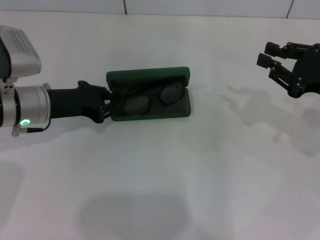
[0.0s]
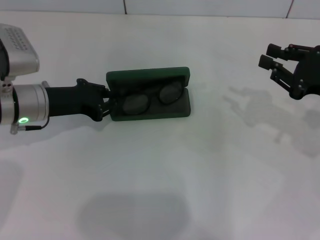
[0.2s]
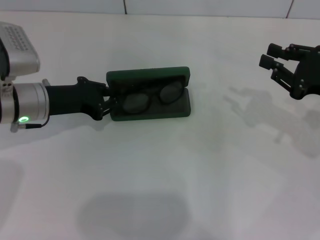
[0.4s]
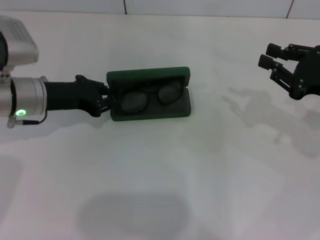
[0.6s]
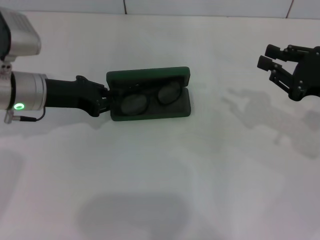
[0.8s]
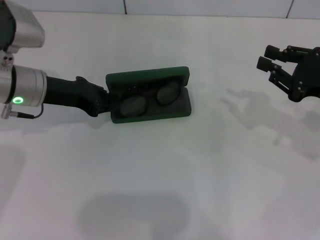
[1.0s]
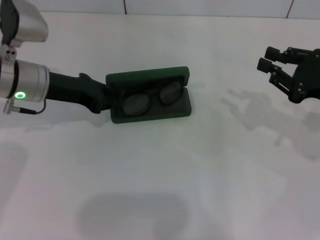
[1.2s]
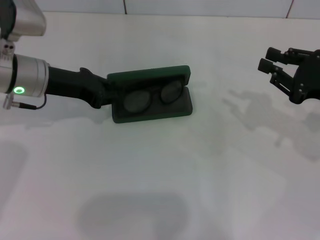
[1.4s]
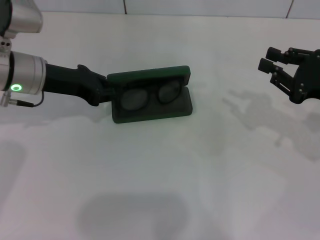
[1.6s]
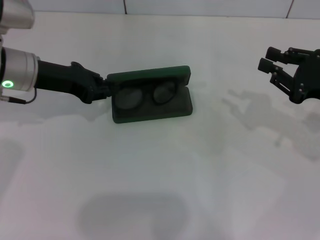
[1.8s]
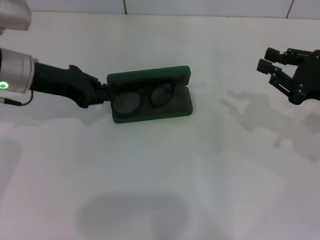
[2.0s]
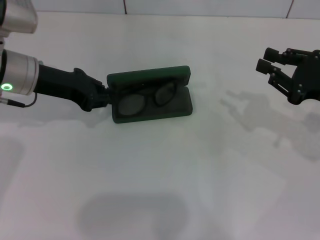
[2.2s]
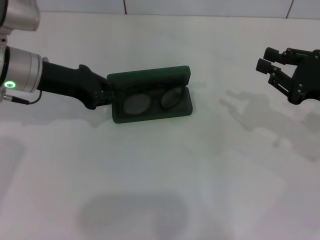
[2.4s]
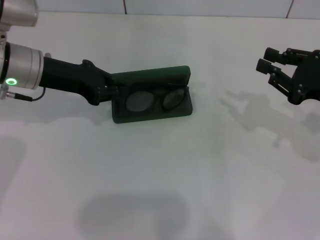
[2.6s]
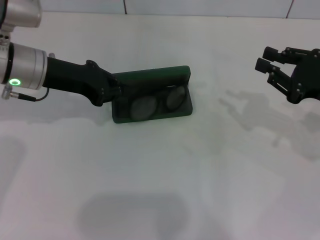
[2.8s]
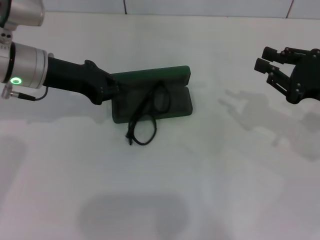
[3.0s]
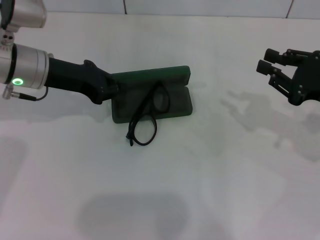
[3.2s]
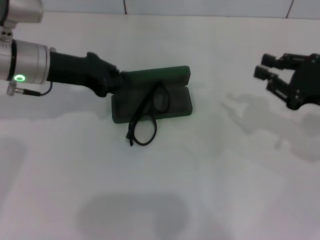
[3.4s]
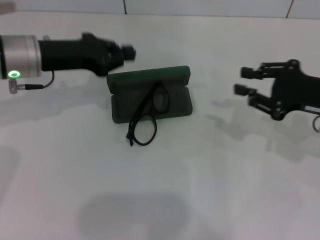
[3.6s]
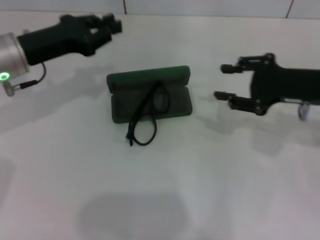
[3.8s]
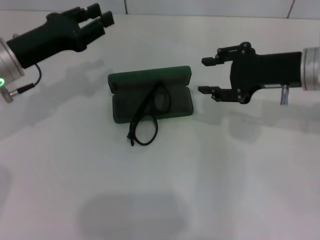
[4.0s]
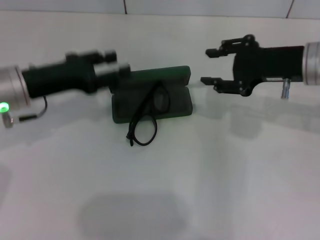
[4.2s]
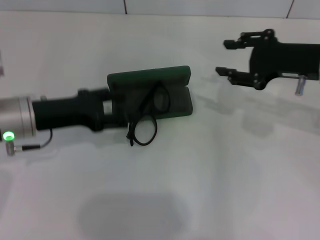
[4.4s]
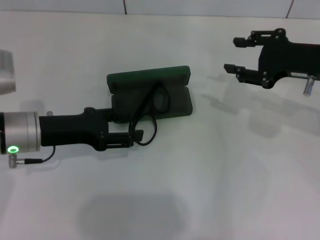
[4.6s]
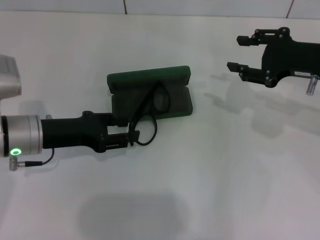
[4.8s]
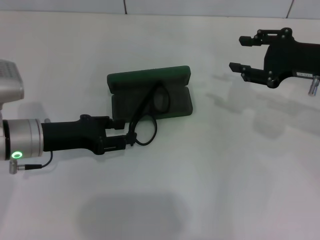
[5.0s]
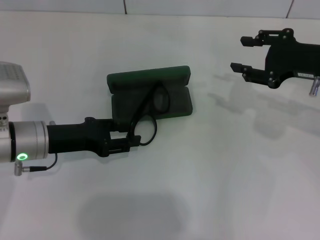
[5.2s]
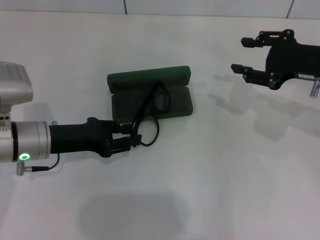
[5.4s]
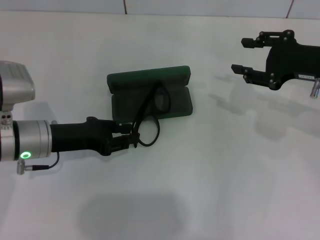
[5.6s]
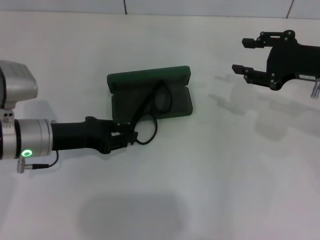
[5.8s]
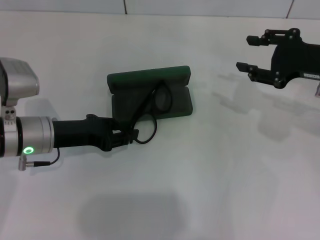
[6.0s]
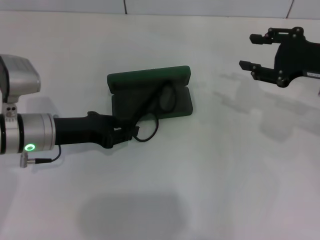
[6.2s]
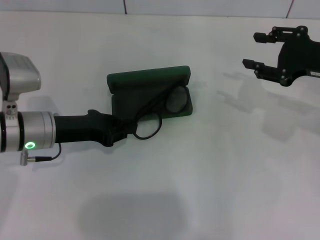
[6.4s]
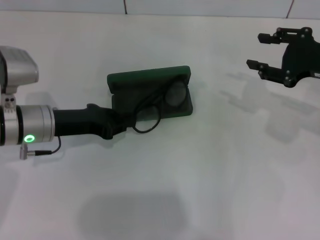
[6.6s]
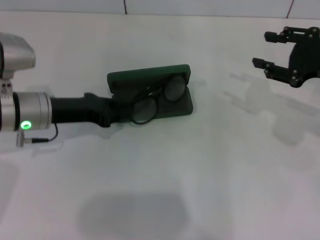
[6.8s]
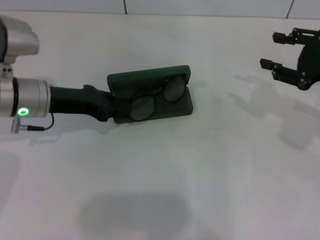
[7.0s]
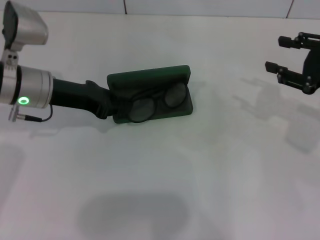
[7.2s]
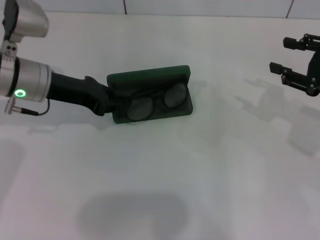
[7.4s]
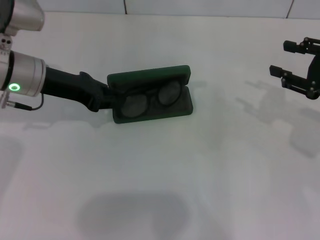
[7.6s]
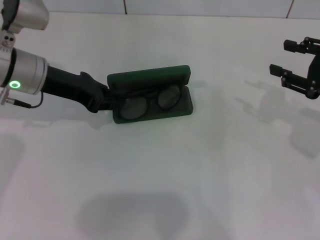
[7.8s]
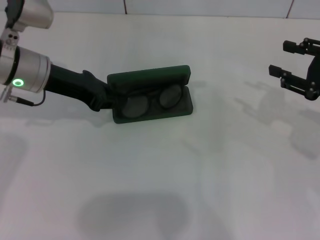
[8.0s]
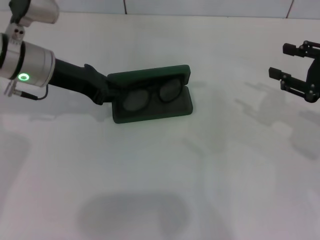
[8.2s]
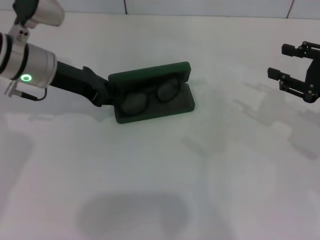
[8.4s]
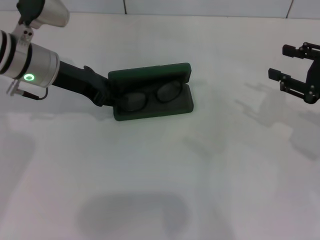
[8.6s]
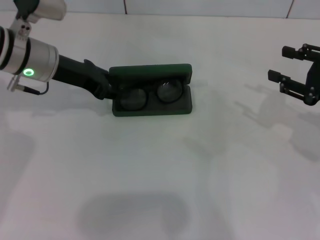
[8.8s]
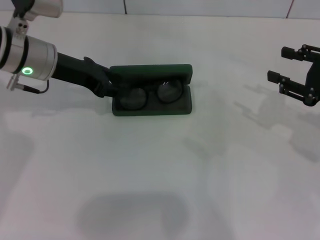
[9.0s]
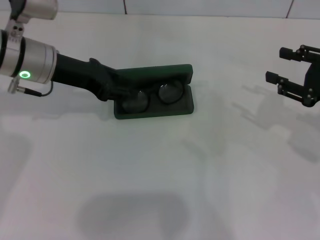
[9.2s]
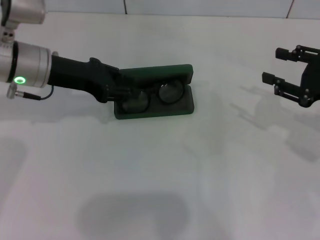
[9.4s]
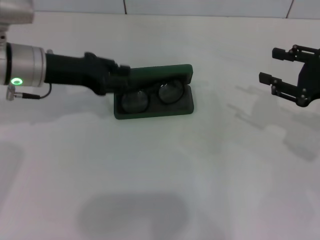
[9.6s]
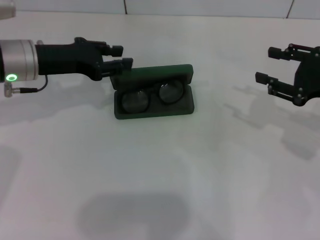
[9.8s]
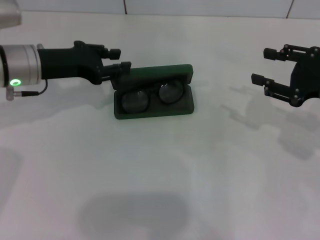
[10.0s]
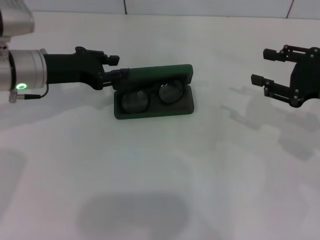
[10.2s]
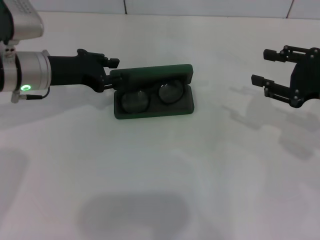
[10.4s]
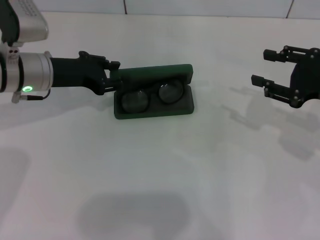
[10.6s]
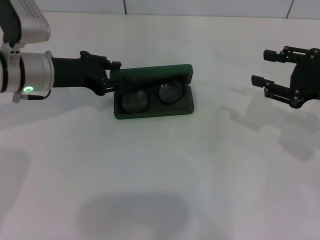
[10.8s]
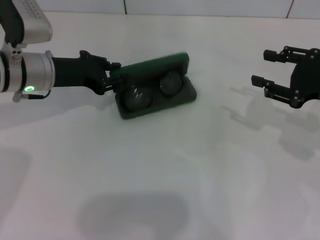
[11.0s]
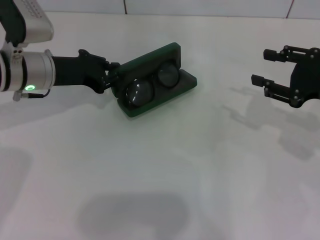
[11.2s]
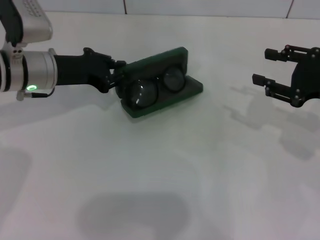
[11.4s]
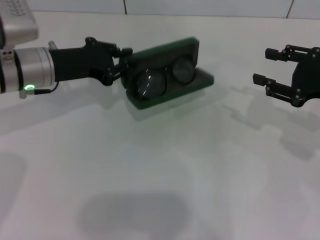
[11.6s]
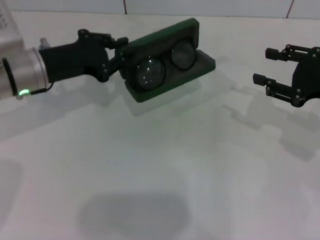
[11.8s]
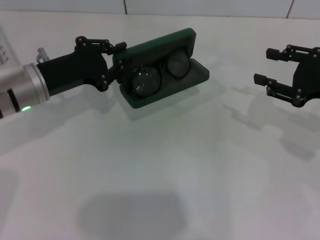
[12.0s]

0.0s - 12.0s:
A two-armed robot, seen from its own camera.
Step, 0.0s - 9.2s: Put the glasses into the case with your left hand.
0.0s - 1.6s: The left gripper moves approximately 5 cm.
1.6s - 3.0s: The grippers make only small movements.
3.0s - 4.4s: The right gripper moves forward and to the left, about 10 cm. The left gripper is displaced backward by roughly 5 cm, and opens.
4.4s - 6.0s: The grippers make only small movements.
6.0s - 7.6s: The left gripper travels upward and forward by approximately 10 cm; the right gripper ends up roughly 5 cm from where it was.
7.6s - 9.0s: The left gripper opens its fingers.

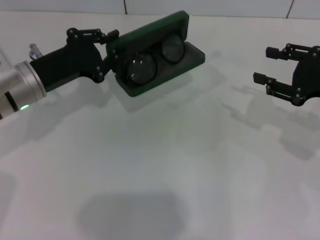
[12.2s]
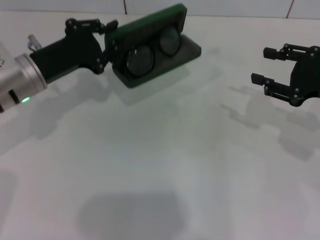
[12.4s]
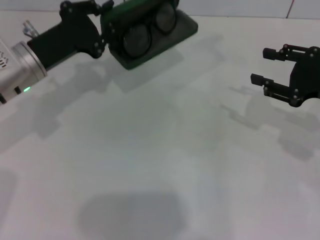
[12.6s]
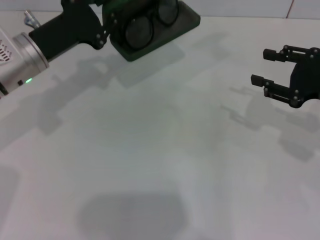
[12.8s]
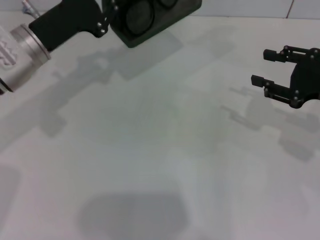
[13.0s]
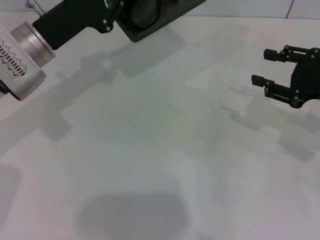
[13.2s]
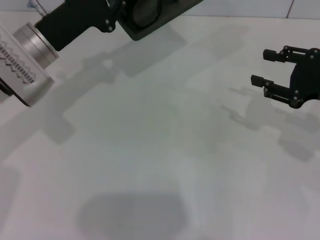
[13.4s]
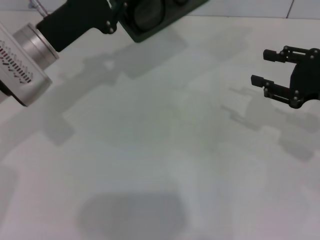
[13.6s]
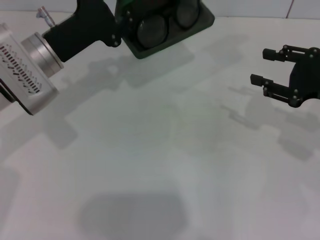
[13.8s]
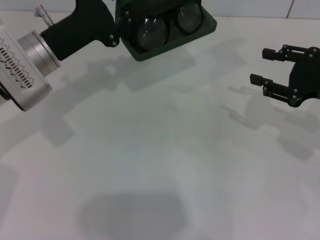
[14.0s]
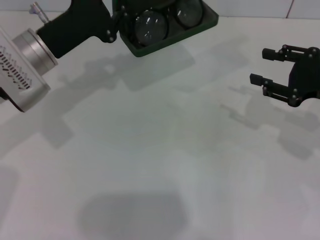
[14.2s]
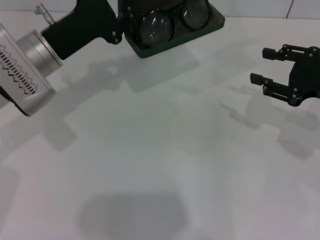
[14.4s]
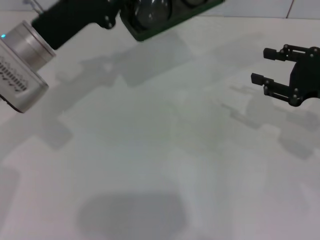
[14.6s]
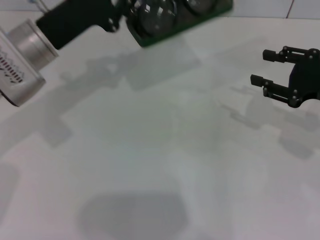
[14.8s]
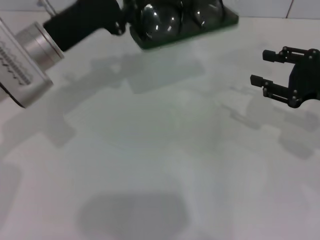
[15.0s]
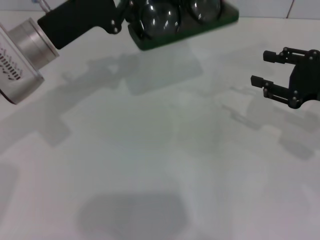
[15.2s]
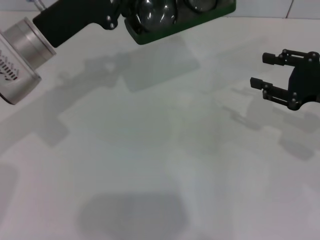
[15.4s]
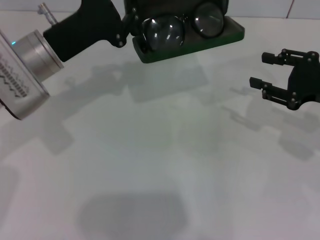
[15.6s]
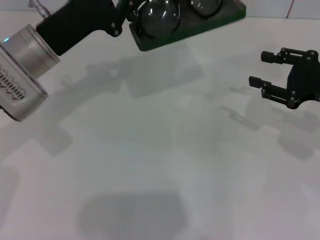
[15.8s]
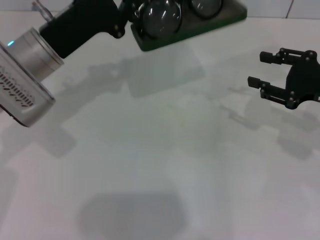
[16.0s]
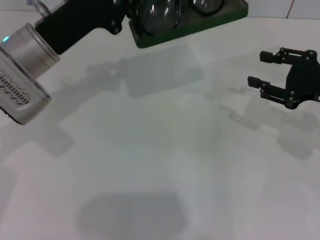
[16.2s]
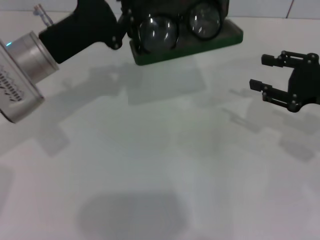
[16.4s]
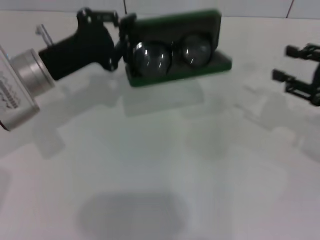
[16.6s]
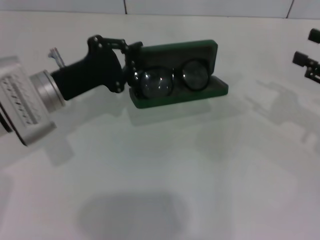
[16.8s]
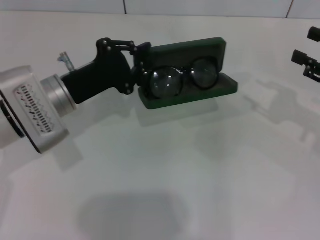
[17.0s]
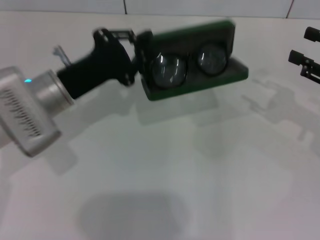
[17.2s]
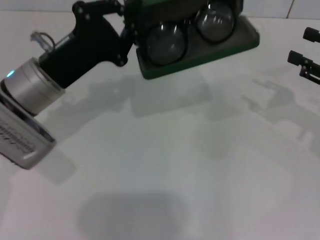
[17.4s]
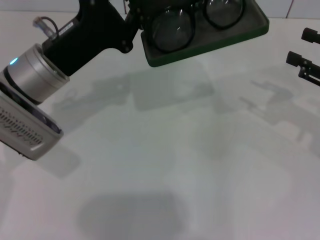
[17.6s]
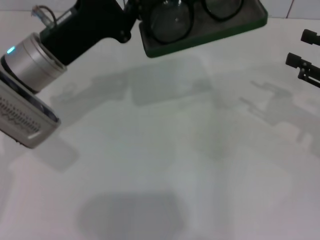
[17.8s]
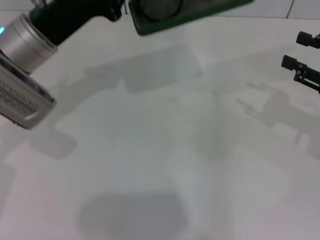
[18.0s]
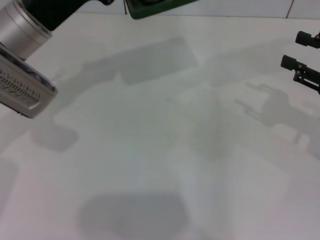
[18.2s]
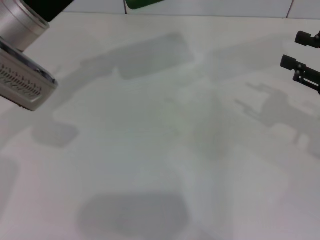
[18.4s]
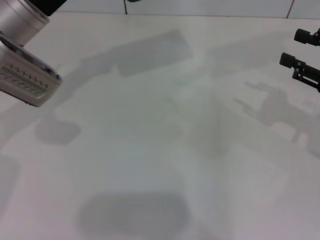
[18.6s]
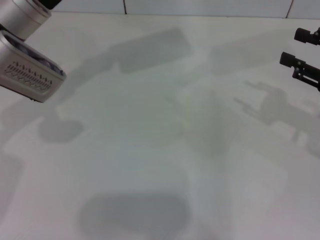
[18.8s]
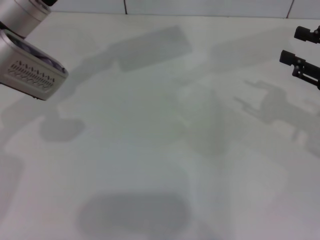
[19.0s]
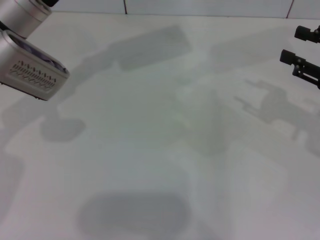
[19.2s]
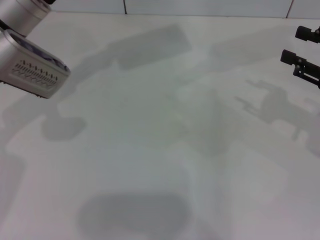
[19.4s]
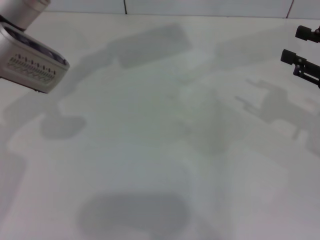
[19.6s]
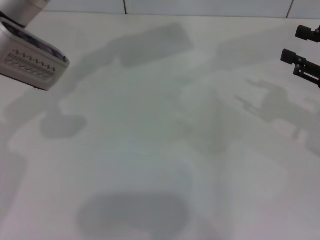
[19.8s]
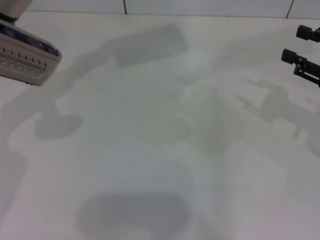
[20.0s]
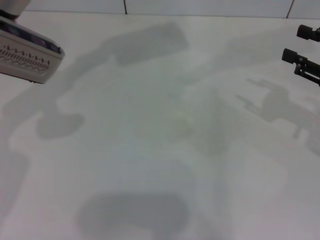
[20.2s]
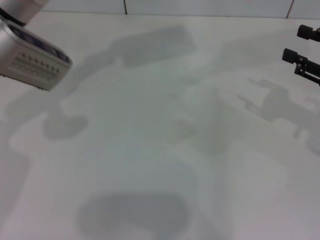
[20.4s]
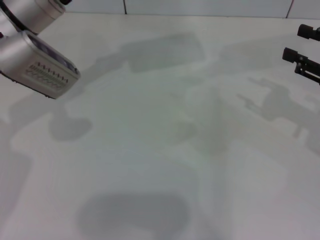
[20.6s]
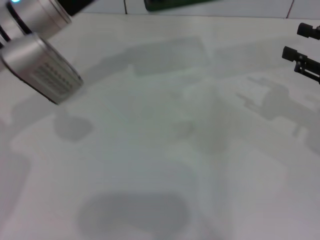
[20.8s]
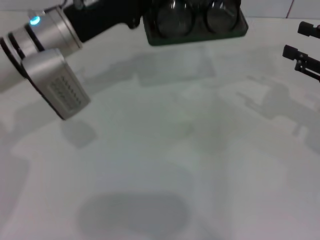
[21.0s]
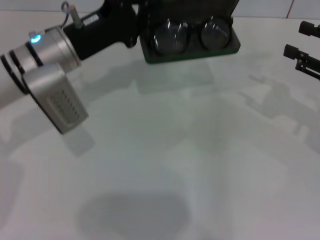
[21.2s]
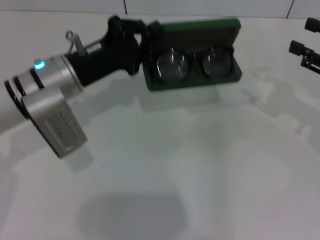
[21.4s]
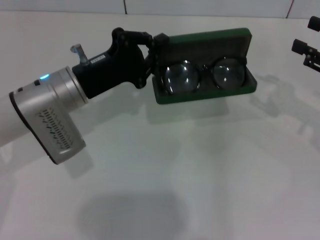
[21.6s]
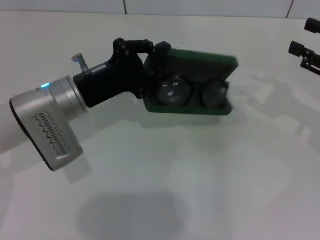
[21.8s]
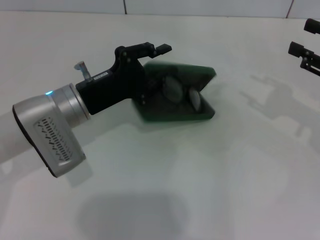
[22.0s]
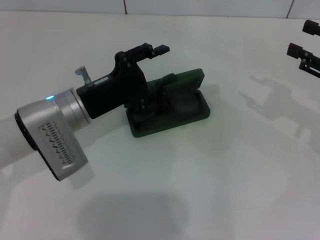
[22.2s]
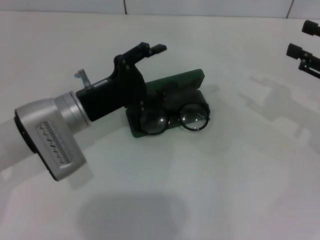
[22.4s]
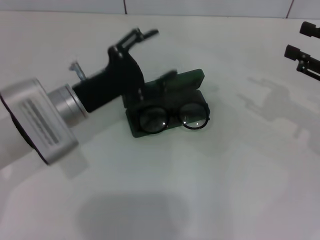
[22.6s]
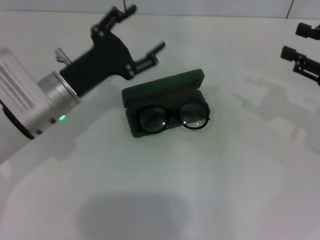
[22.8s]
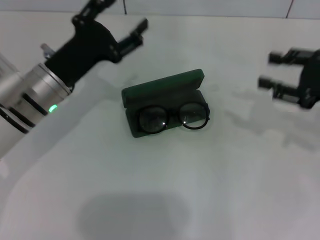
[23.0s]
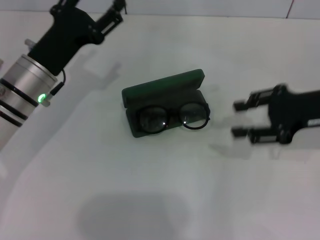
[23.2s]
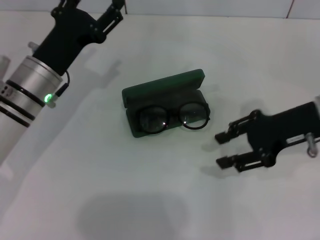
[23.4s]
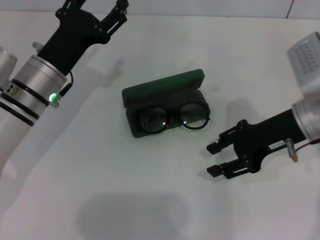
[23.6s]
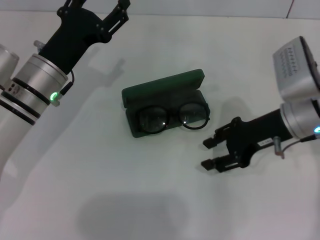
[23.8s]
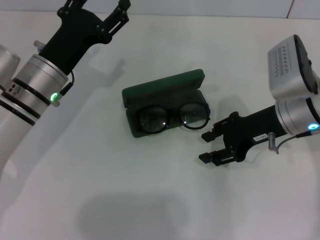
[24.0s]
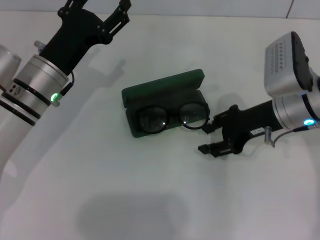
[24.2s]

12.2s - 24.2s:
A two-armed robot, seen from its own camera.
Step, 12.2s - 22.0s: Place the glasses case in the center of the table with your left hand.
13.8s - 15.2s: The grippers make only small movements.
16.6s - 18.2s: The left gripper ends up approximately 5 cm from where it was.
18.2s - 19.8s: The grippers stay close to where they were, moving slightly.
19.8s - 21.2s: The left gripper goes approximately 5 cm downward.
21.2s - 22.6s: The left gripper heads backward and downward, covering some 5 cm, and opens up.
22.6s - 24.2s: The right gripper is displaced to the left by about 15 cm.
